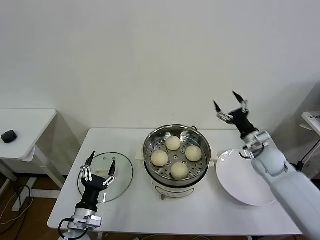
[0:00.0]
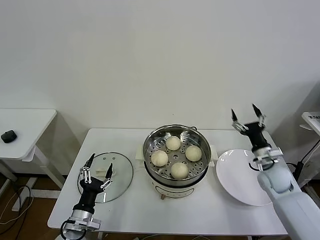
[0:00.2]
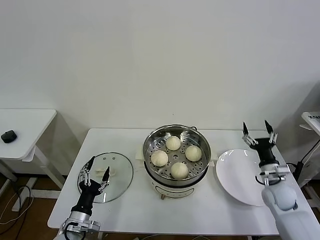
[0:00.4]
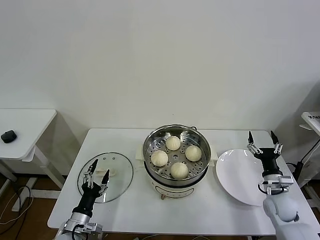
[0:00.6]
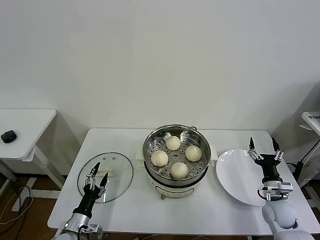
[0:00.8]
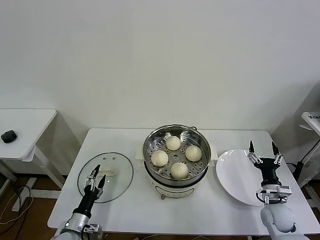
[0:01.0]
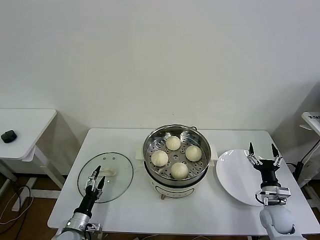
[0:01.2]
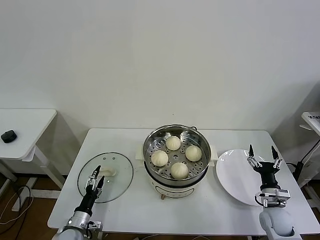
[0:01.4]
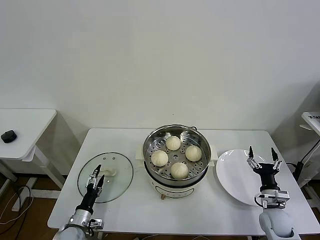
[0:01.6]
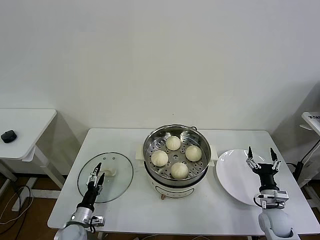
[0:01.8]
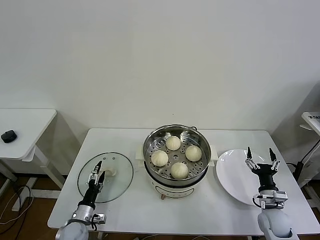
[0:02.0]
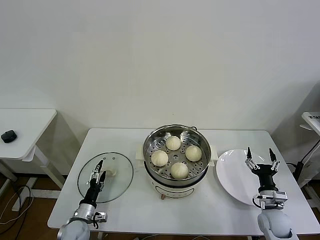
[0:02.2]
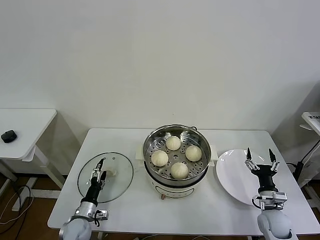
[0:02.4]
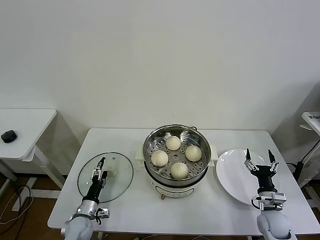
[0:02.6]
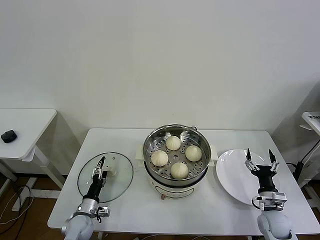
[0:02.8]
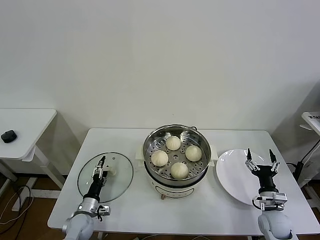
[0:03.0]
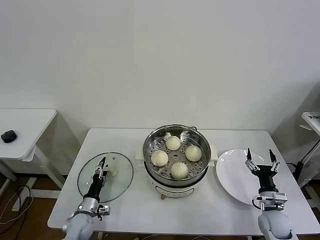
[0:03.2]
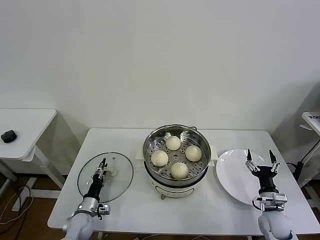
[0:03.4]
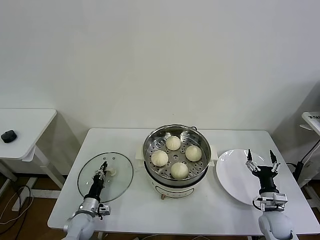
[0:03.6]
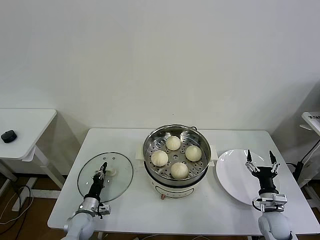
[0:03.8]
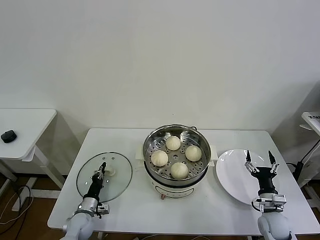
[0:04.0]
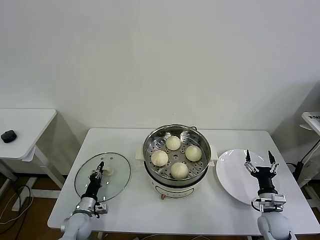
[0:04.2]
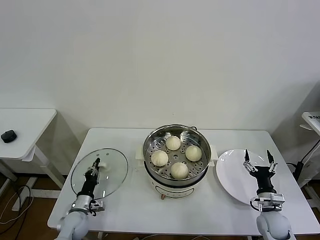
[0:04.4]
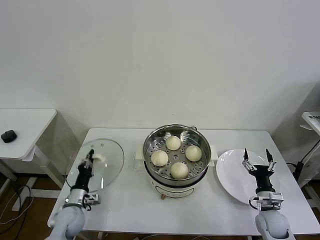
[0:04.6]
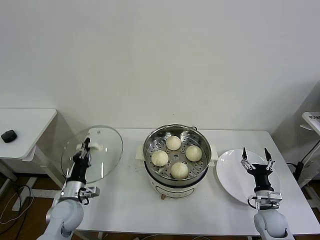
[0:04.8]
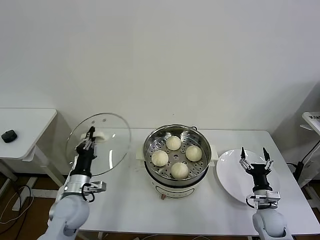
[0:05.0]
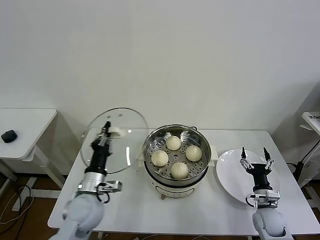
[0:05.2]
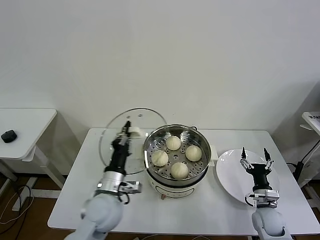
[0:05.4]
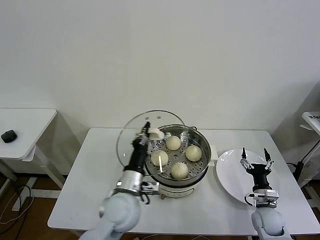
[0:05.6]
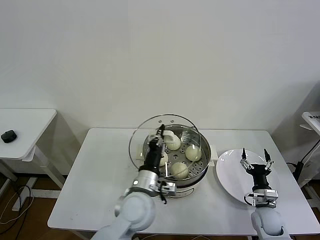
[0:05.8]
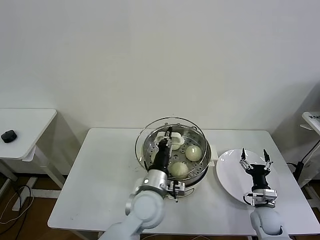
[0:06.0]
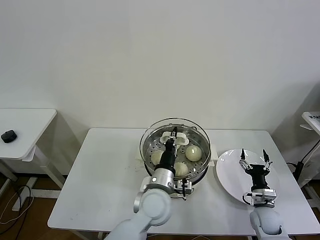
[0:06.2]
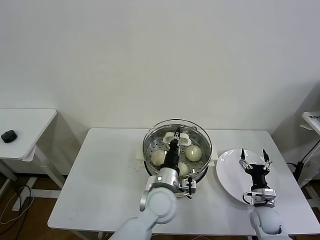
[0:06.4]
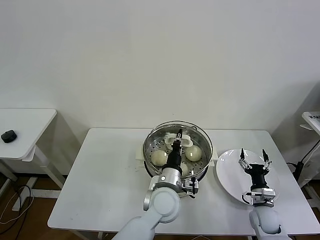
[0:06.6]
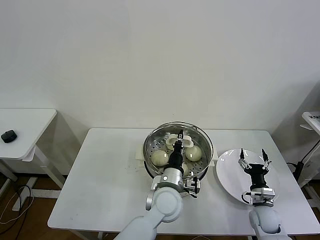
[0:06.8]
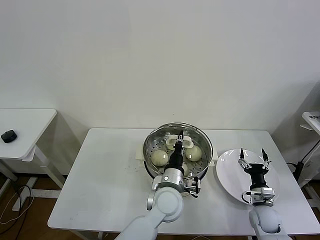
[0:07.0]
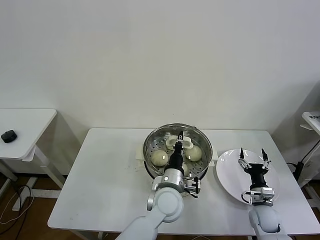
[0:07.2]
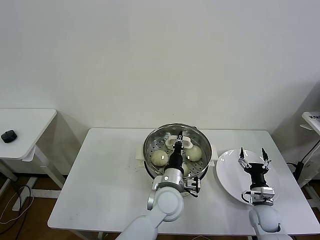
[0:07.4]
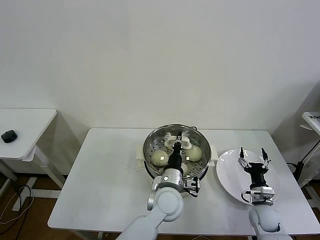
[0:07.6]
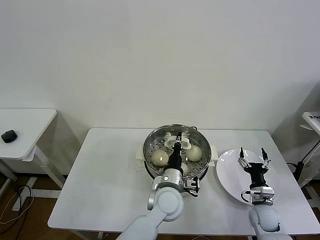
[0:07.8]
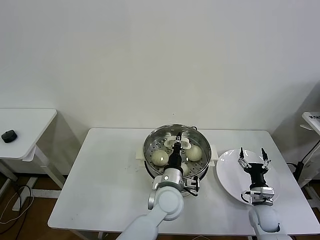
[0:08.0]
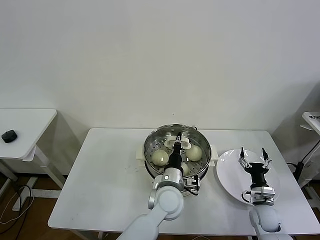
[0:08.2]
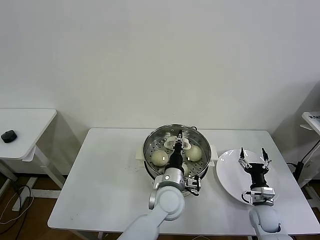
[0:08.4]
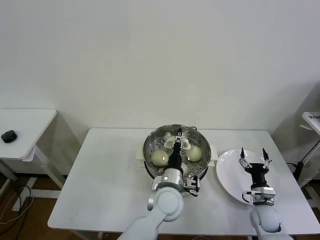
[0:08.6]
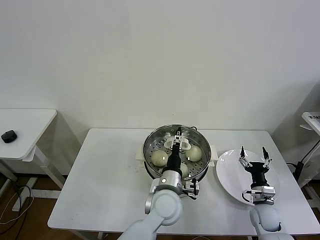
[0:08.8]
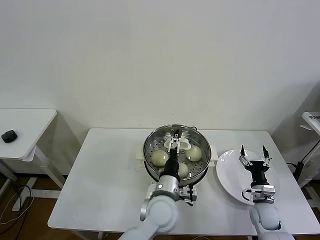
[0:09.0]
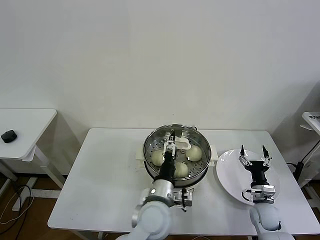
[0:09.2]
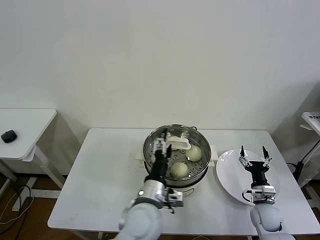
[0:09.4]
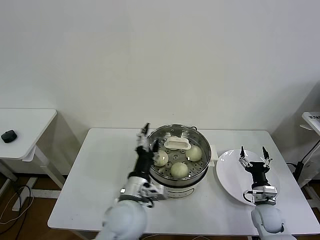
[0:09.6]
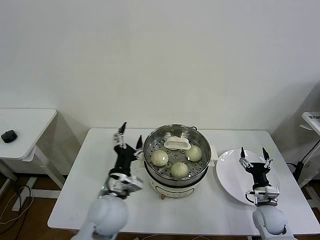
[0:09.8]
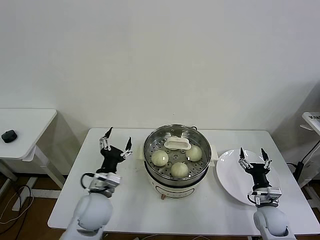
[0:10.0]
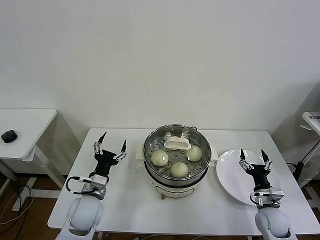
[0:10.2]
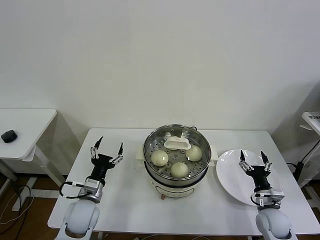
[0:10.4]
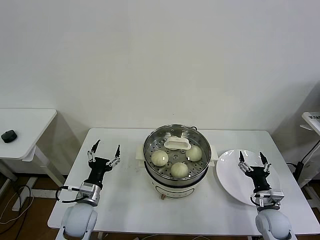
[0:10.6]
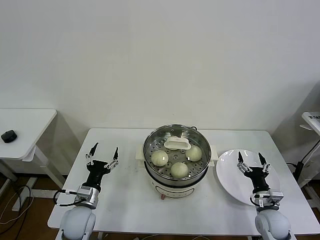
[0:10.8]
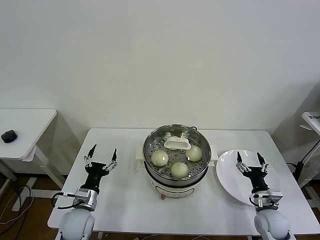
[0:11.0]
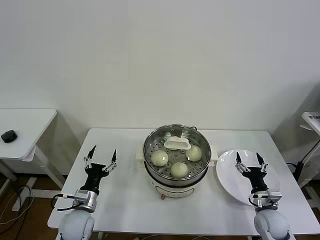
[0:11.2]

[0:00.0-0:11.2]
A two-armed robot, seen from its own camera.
Task of the whole recording: take steamed baozi put them in steamer then cover it.
Step, 0:00.0 to 0:04.2: Grasp the pot lid with left gripper.
Step, 0:04.4 to 0:08.8: Place the pot lid on the steamer with left gripper.
0:00.0 to 0:01.6: The right gripper is displaced downward and backward by roughly 20 cm. The left gripper goes approximately 15 cm downward and to the left.
0:01.6 to 0:03.2: The left gripper heads forward, covering some 5 cm.
0:03.2 to 0:04.8: The left gripper travels upward by some 10 cm, and closes.
0:04.8 to 0:06.4: The left gripper moves to the right, roughly 30 cm.
0:06.4 to 0:08.0: The grippers move only a little.
0:08.0 to 0:09.6: The left gripper is displaced to the left, backward and upward by about 15 cm, and opens up.
0:09.6 to 0:11.2: The left gripper shifts roughly 25 cm to the left and downward.
